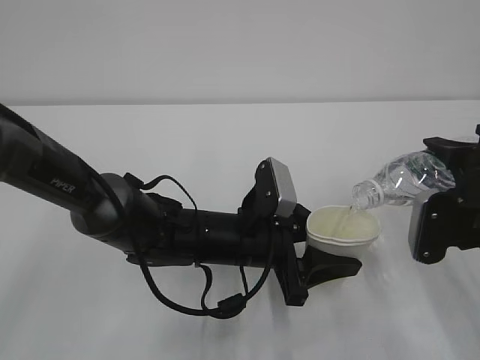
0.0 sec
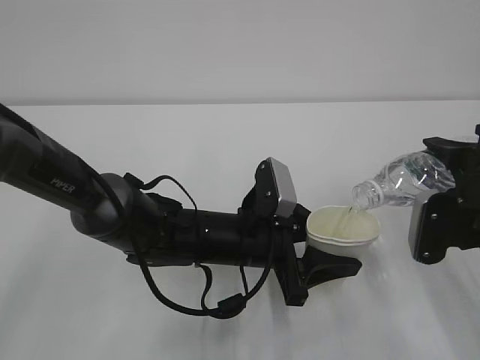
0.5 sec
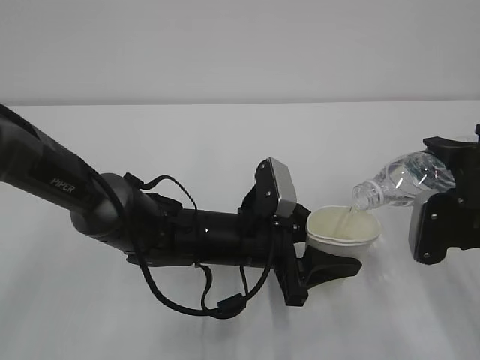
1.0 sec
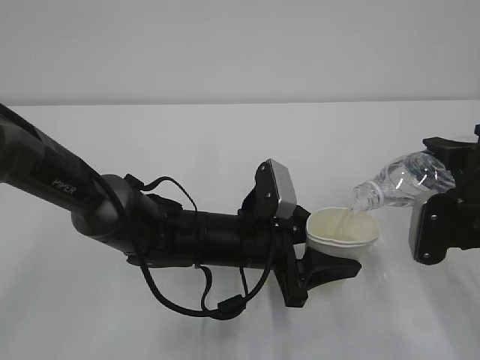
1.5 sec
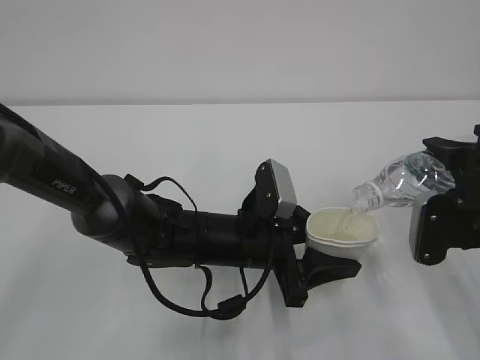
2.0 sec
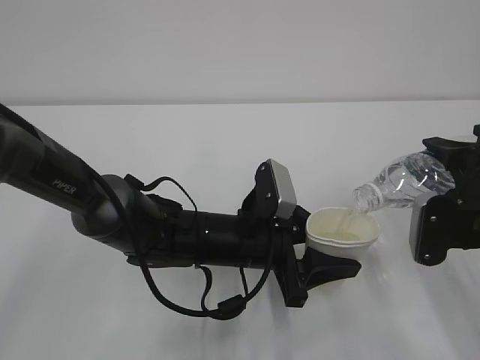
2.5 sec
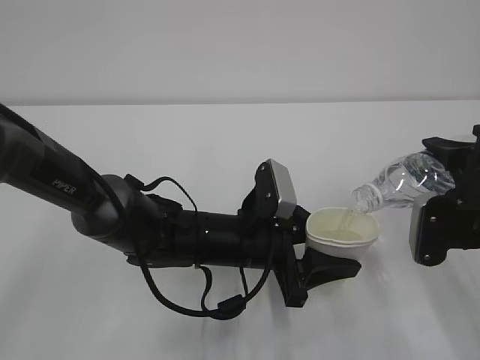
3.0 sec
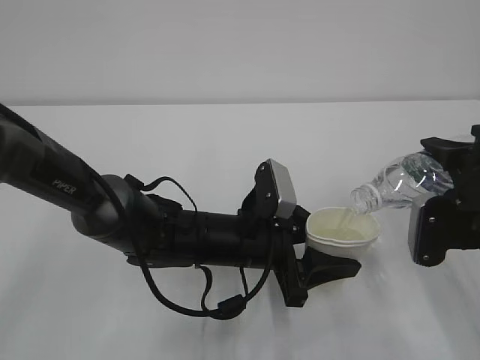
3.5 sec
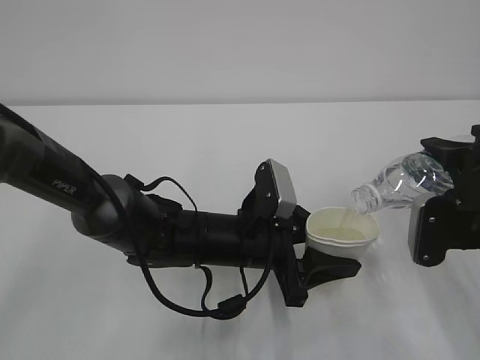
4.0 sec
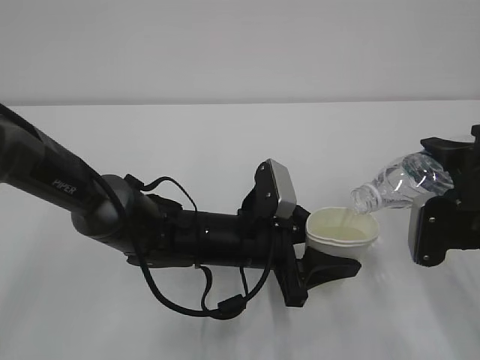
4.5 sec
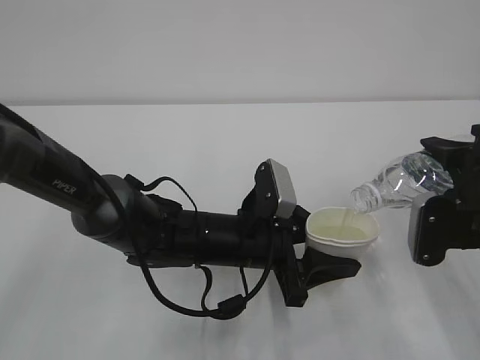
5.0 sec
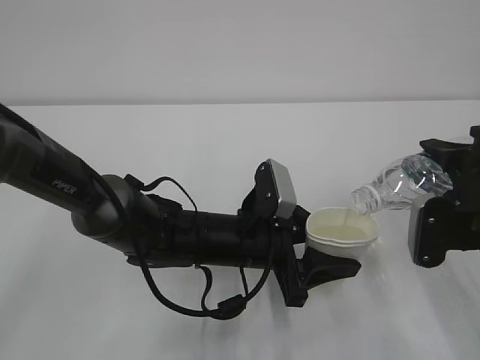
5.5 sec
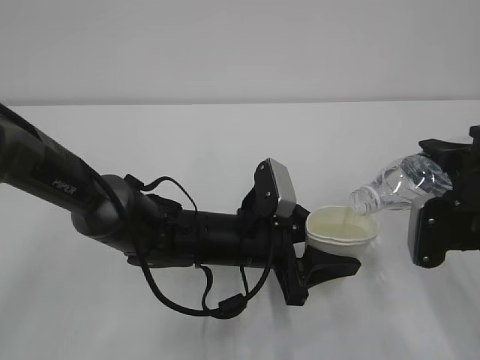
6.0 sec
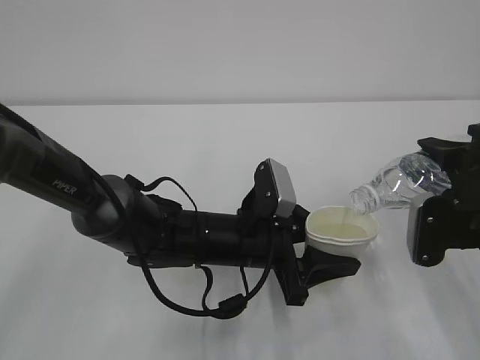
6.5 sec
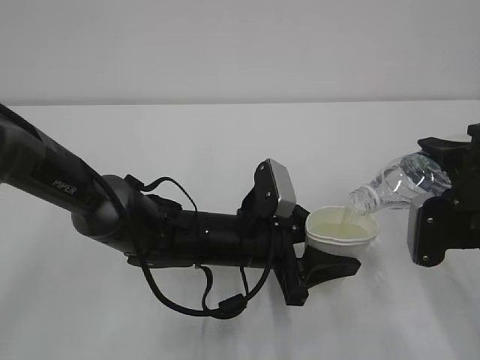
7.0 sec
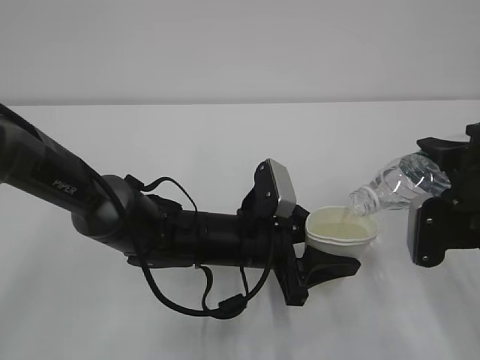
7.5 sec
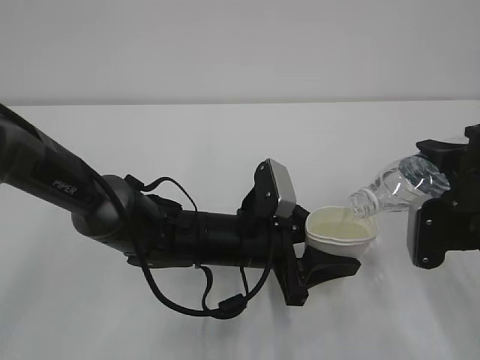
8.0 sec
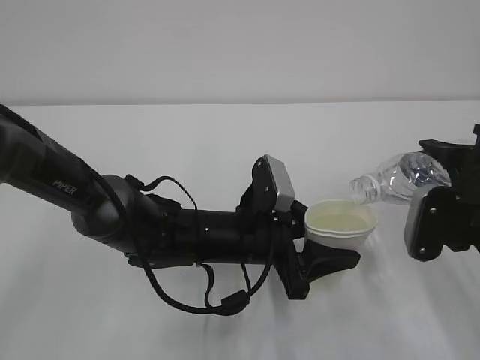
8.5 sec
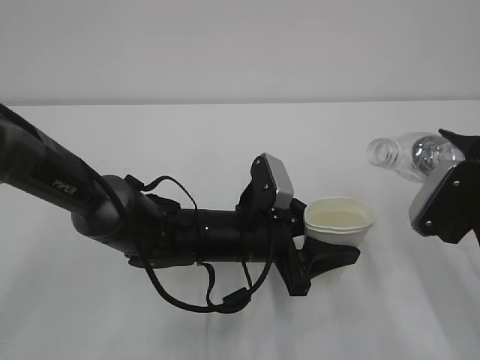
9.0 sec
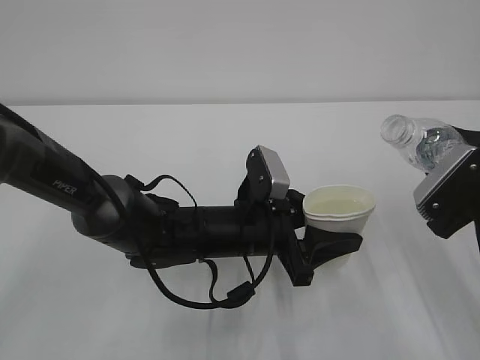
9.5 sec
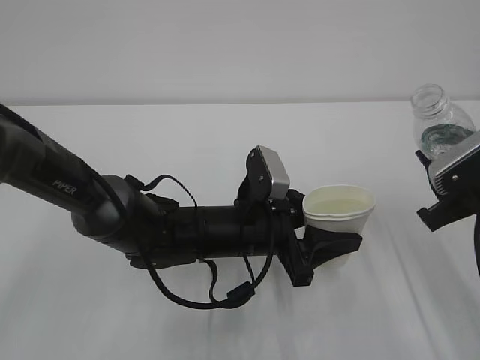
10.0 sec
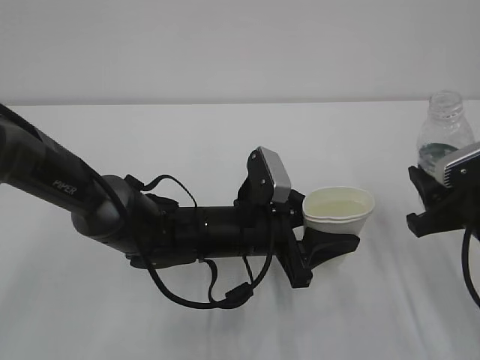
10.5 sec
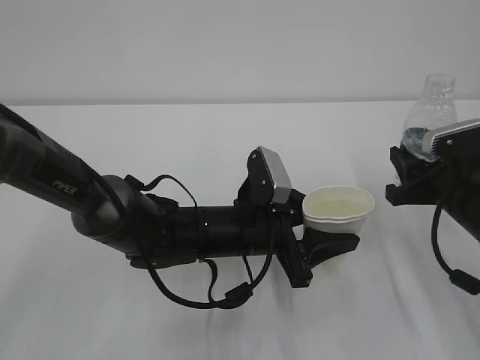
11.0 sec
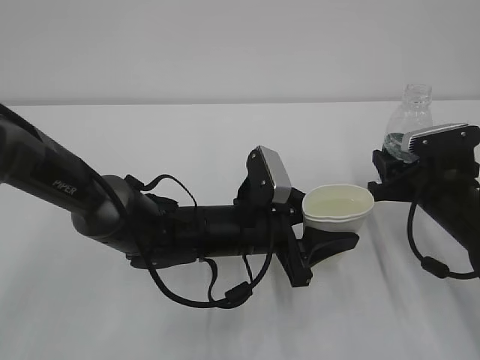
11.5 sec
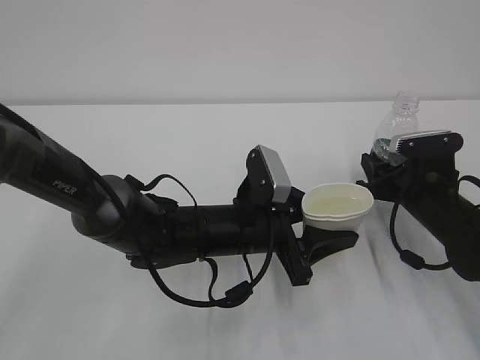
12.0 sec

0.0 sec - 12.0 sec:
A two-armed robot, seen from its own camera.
0.0 sec - 8.0 sec: Both grippers stay put.
10.0 sec - 12.0 sec: The right gripper moves forward and downward, roughly 15 cm.

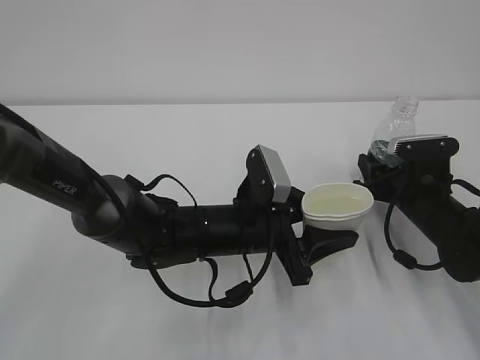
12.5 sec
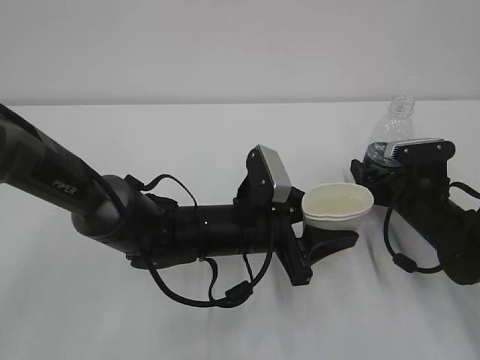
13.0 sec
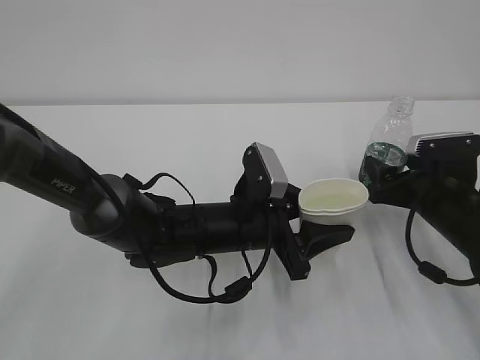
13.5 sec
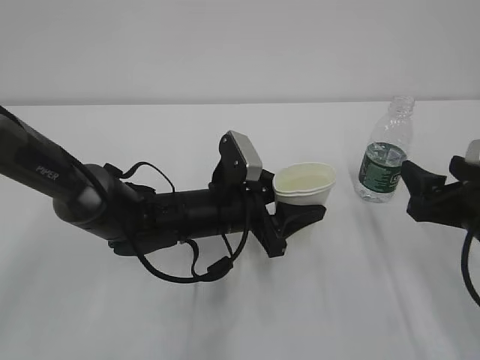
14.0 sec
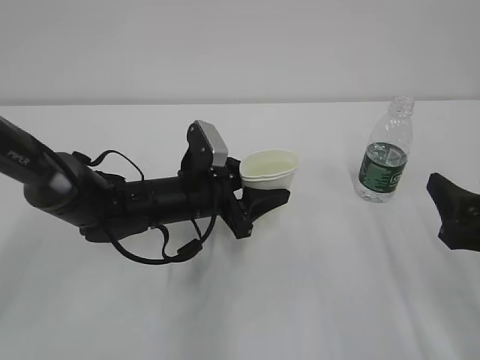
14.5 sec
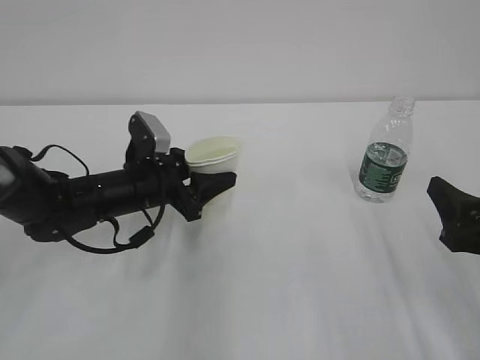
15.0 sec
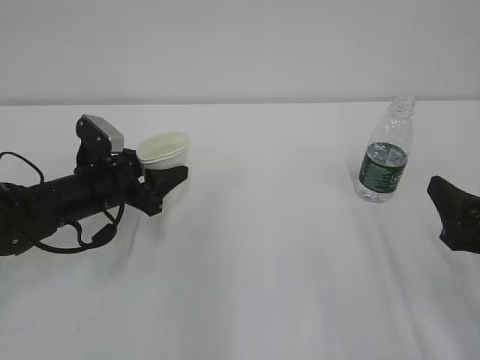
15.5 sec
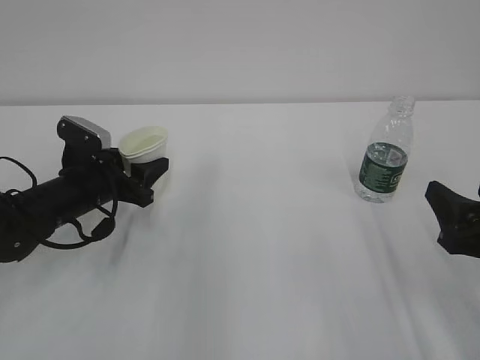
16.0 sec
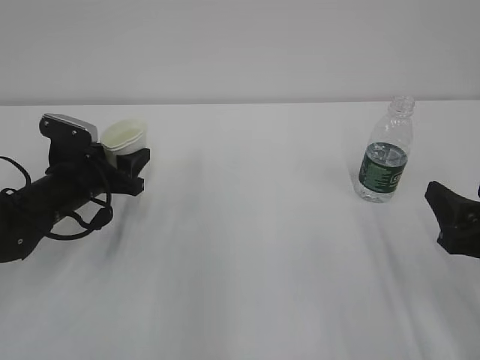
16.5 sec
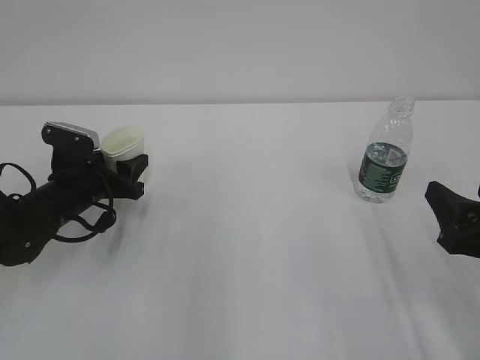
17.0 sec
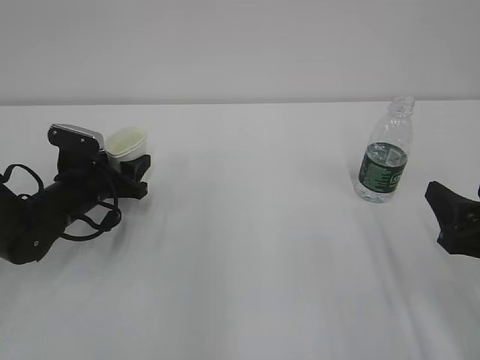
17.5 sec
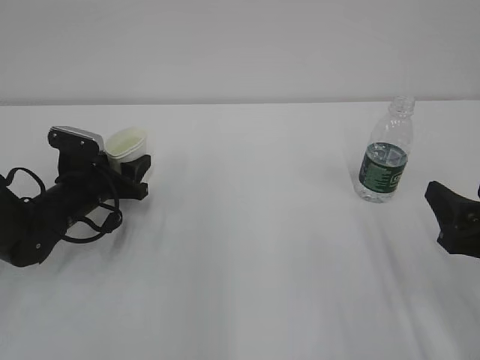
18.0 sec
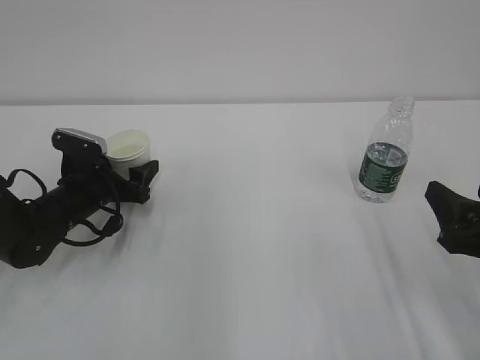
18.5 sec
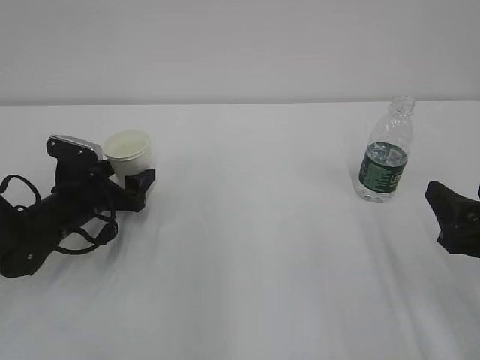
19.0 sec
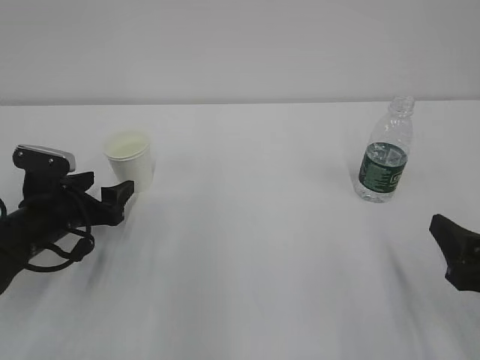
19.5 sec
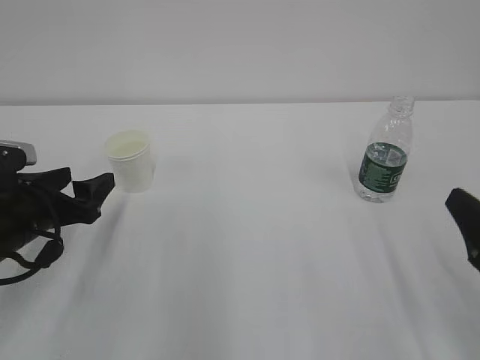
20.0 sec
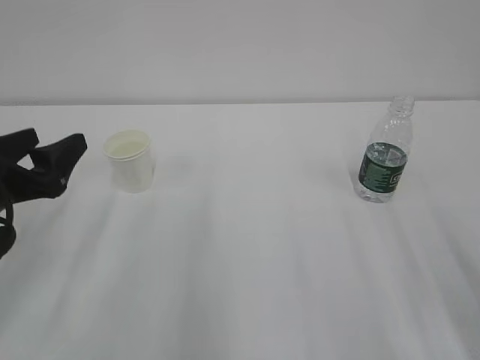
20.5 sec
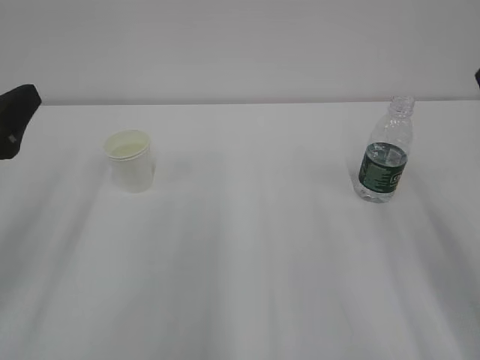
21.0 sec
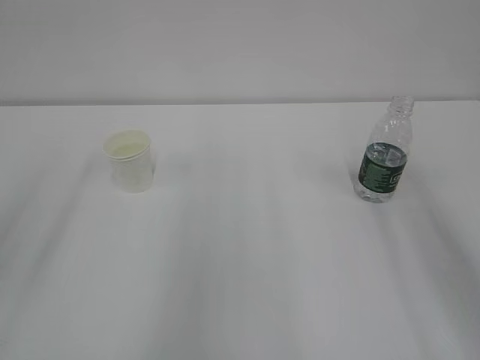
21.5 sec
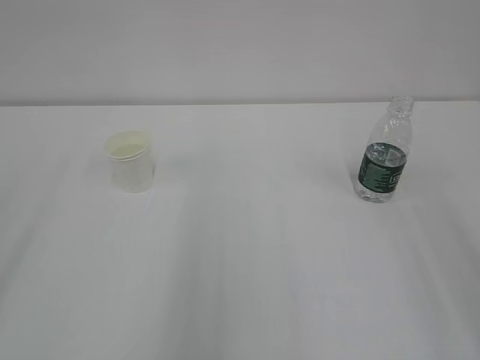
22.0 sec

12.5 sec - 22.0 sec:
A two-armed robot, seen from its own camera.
12.5 sec - 14.5 sec: The right gripper travels backward and upward by about 20 cm, and opens its fingers; the left gripper travels to the left and forward by approximately 10 cm.
14.5 sec - 16.5 sec: The left gripper heads to the left, covering approximately 15 cm.
16.5 sec - 18.0 sec: The grippers stay close to where they were, moving slightly.
18.0 sec - 20.0 sec: The left gripper travels backward and upward by about 10 cm, and opens up.
20.0 sec - 22.0 sec: The two grippers go about 25 cm upward and backward.
